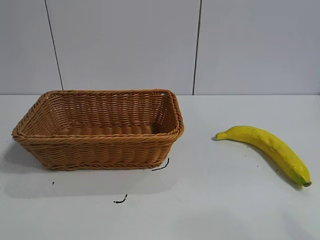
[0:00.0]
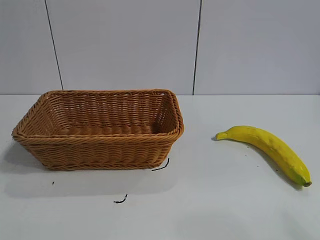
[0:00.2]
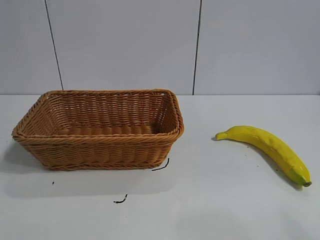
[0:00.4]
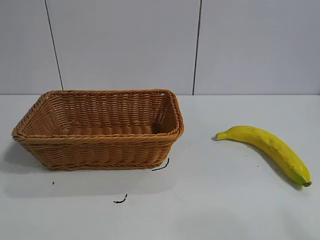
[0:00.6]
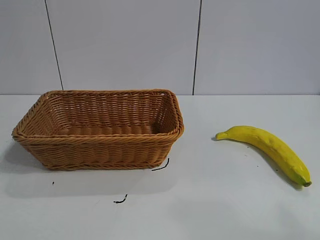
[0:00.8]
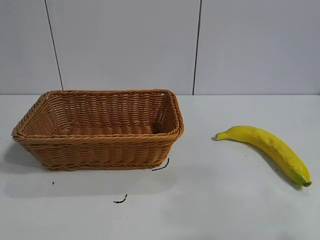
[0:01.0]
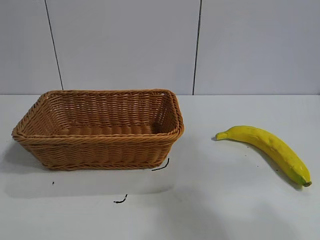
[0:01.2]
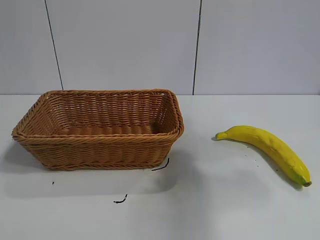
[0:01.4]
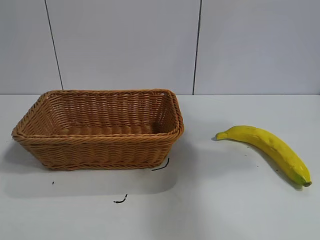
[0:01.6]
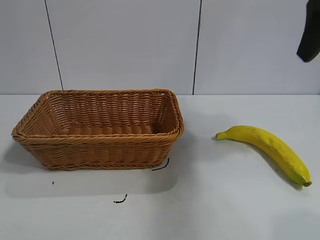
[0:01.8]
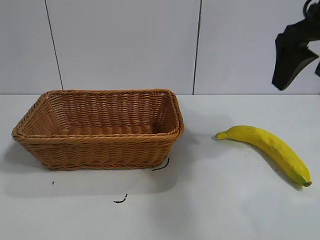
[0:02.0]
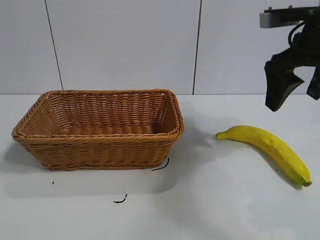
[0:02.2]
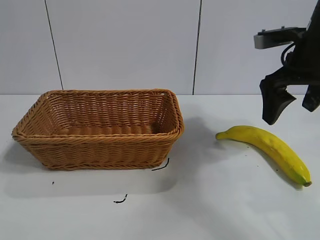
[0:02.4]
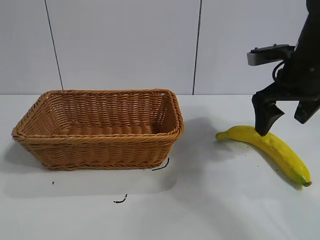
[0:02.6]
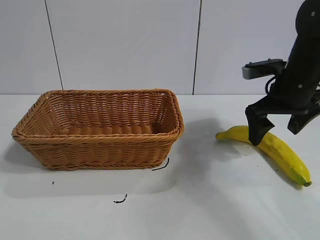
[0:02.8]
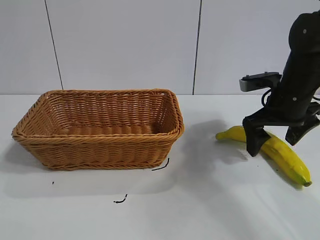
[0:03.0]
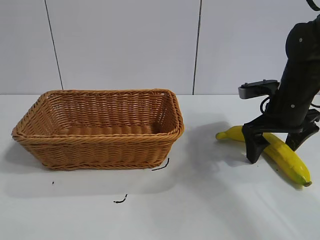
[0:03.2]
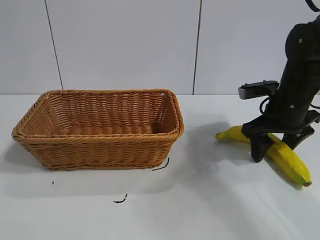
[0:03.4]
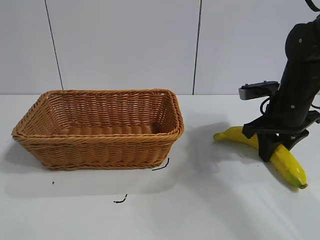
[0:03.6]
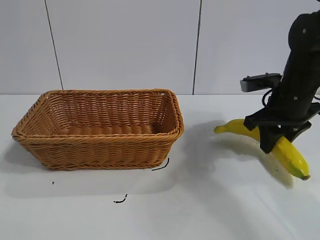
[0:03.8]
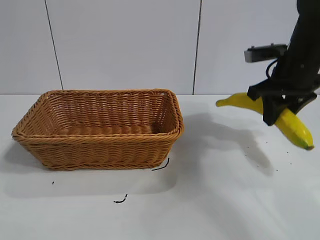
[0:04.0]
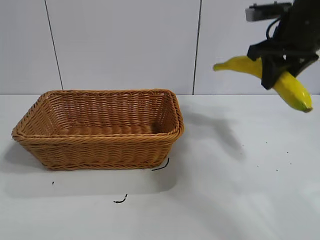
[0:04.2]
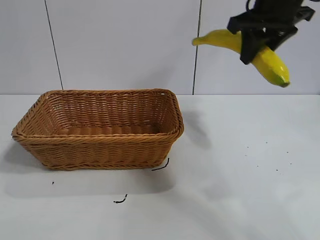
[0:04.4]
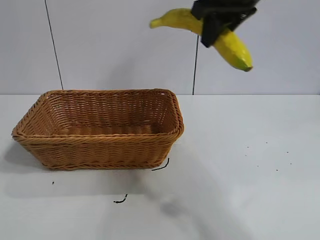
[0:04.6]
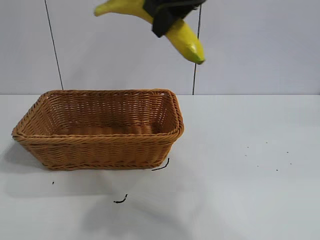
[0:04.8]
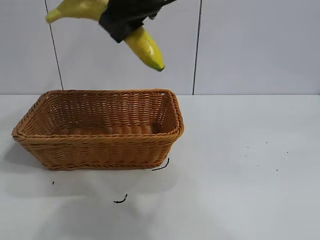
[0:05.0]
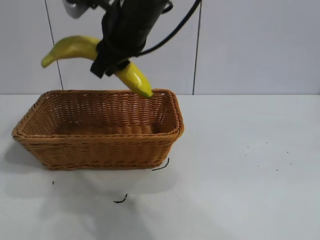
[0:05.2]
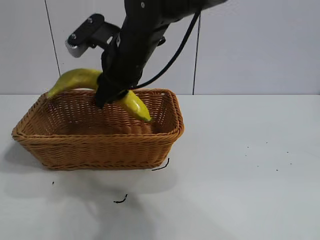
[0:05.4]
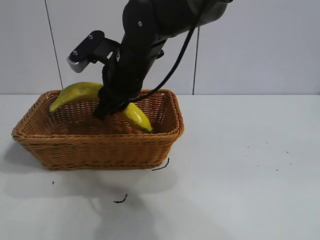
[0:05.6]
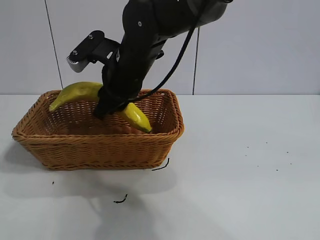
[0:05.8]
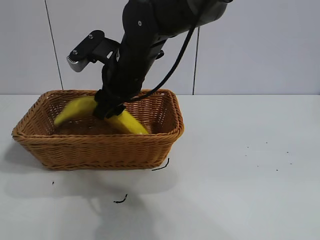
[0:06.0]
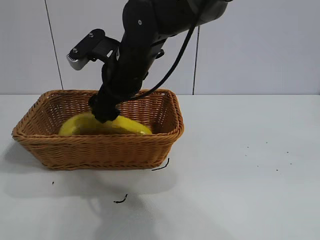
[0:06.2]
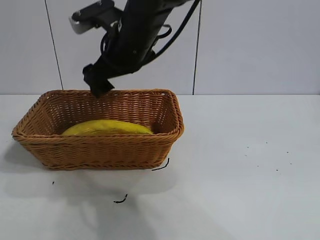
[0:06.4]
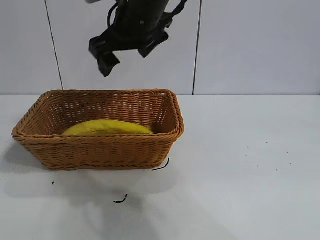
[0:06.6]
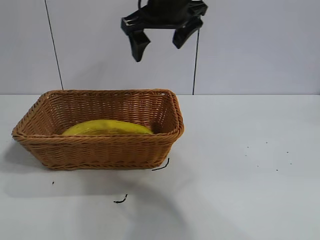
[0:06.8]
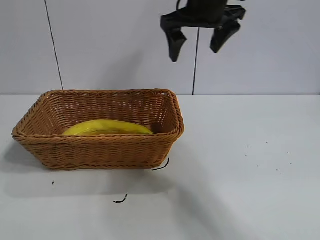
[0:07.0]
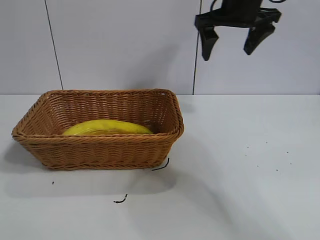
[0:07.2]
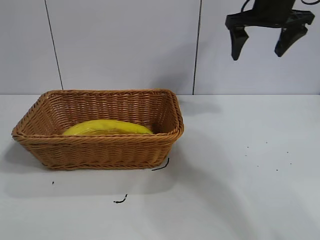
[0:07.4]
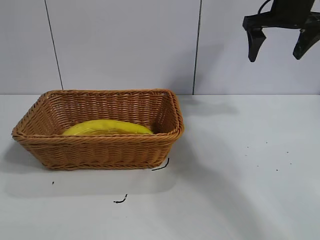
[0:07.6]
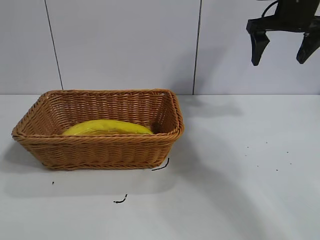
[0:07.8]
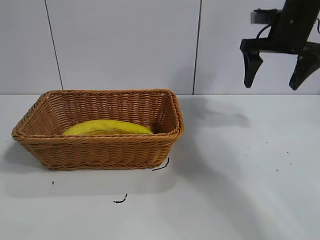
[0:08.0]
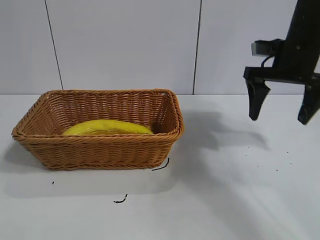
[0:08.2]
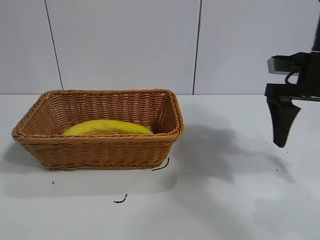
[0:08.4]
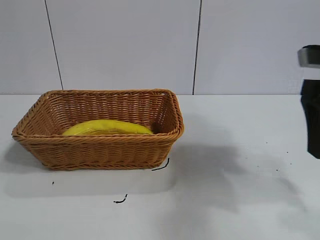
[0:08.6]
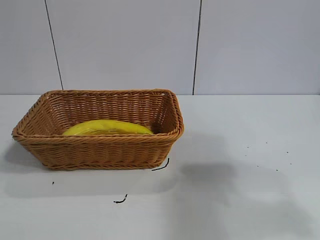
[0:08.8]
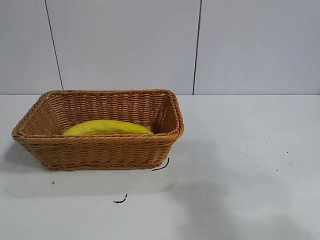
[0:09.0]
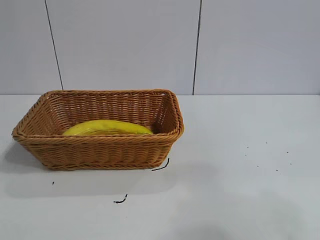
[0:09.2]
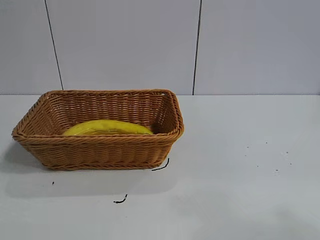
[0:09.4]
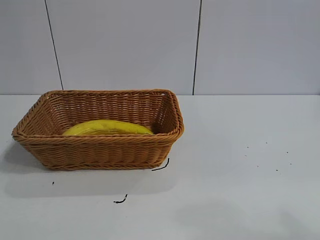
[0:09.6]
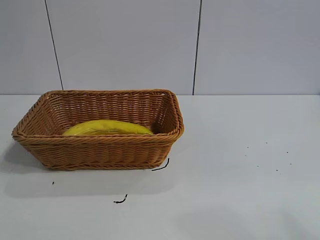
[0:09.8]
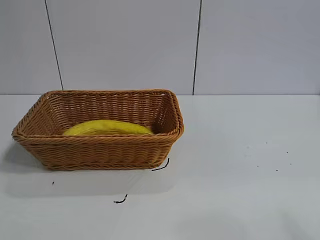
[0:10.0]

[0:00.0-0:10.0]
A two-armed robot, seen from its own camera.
Task of the whole recording: pick up the banana and put it into the basket.
Step, 0:01.8 to 0:03.6: Grasp the banana with right gripper.
Step, 0:04.0 to 0:06.2: Place the banana in the basket with right gripper.

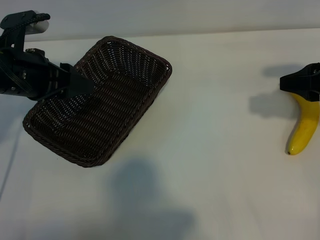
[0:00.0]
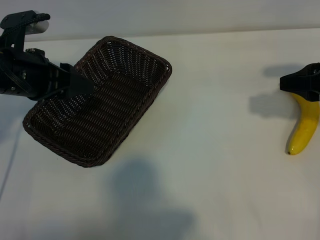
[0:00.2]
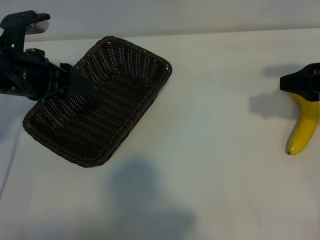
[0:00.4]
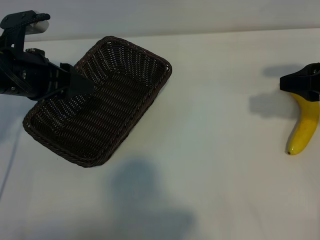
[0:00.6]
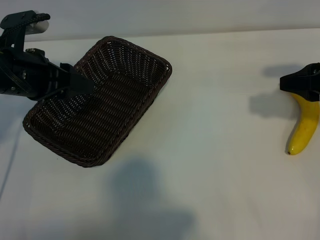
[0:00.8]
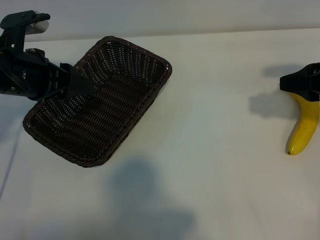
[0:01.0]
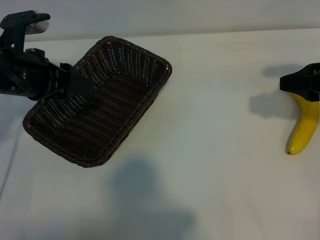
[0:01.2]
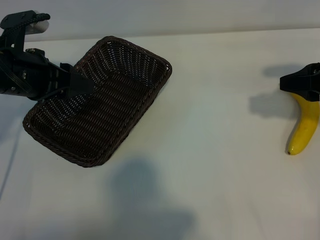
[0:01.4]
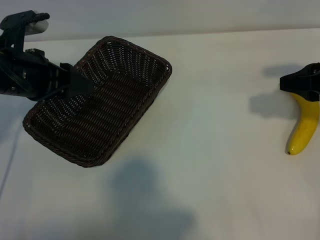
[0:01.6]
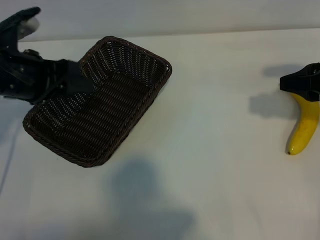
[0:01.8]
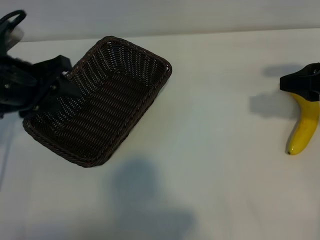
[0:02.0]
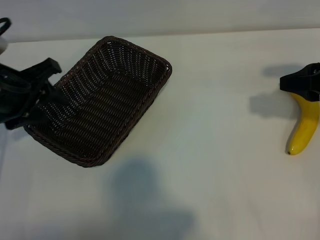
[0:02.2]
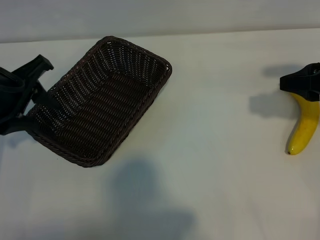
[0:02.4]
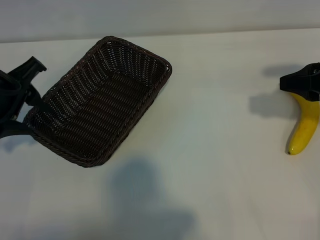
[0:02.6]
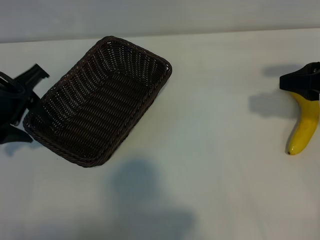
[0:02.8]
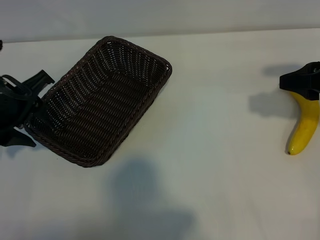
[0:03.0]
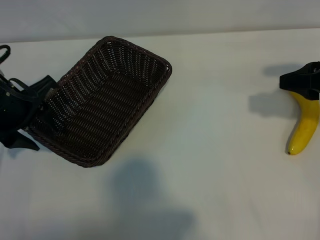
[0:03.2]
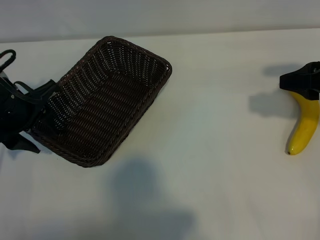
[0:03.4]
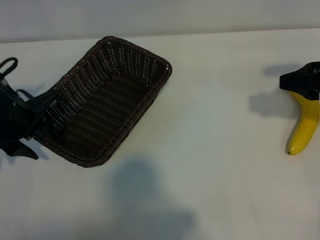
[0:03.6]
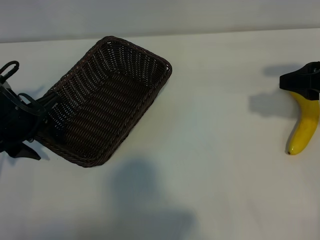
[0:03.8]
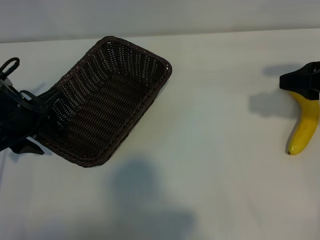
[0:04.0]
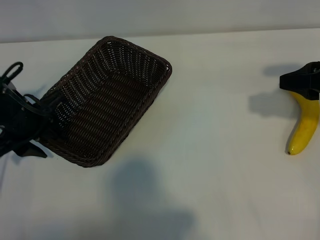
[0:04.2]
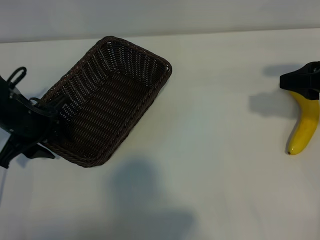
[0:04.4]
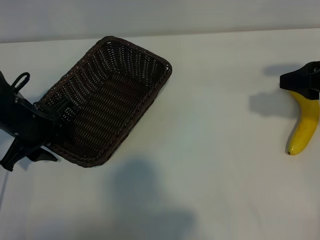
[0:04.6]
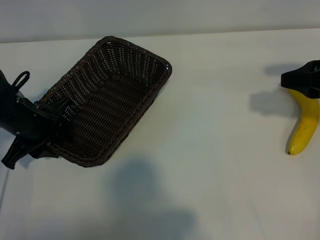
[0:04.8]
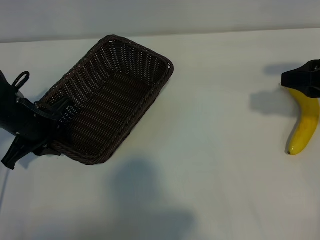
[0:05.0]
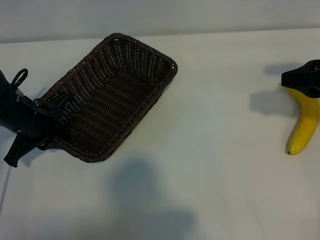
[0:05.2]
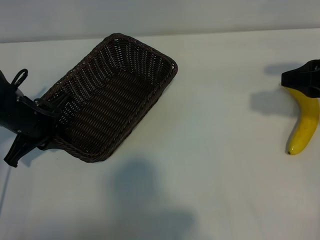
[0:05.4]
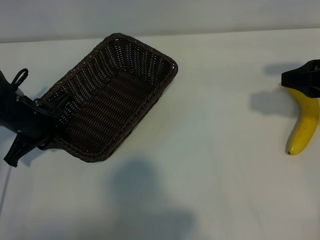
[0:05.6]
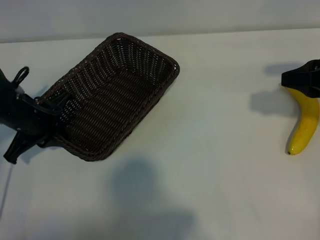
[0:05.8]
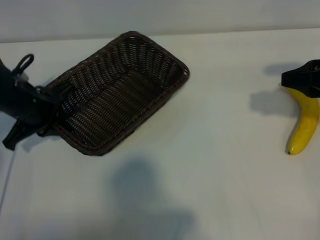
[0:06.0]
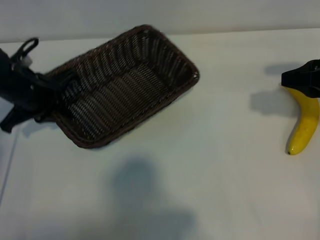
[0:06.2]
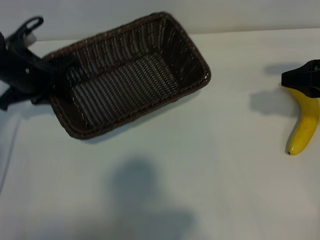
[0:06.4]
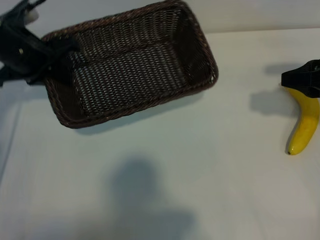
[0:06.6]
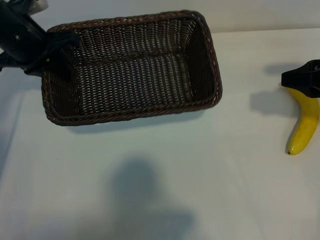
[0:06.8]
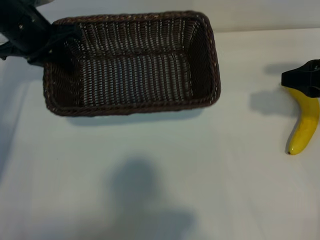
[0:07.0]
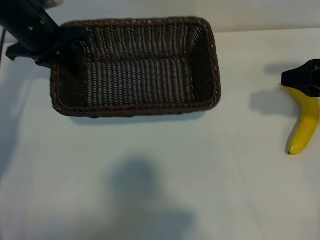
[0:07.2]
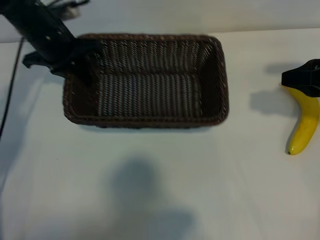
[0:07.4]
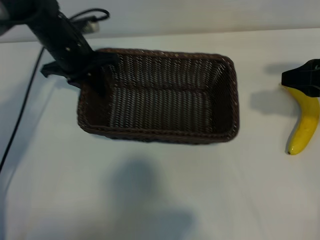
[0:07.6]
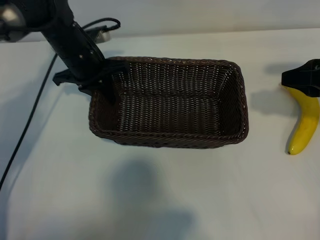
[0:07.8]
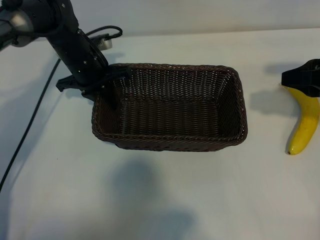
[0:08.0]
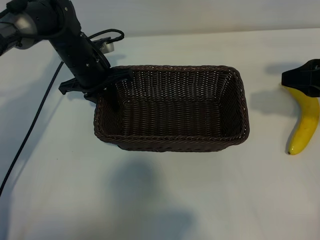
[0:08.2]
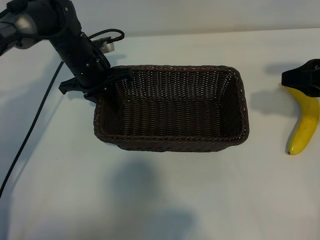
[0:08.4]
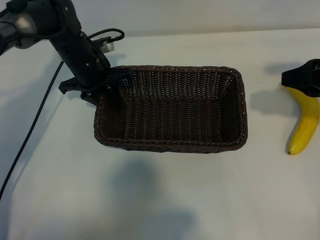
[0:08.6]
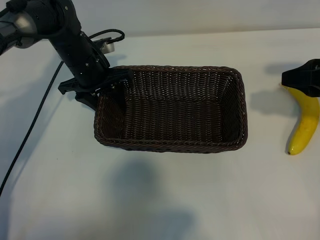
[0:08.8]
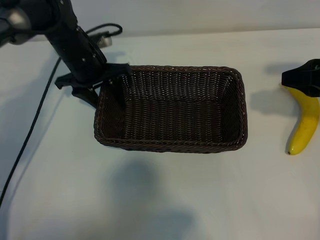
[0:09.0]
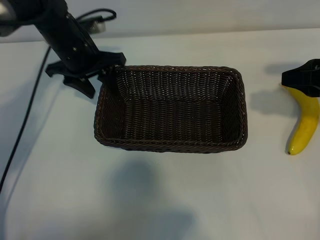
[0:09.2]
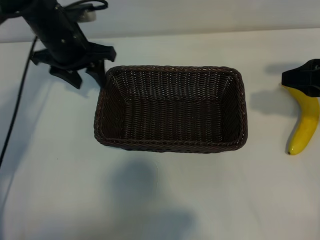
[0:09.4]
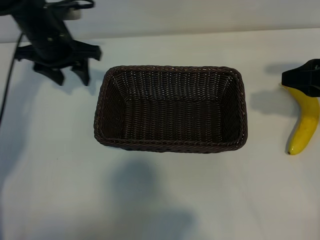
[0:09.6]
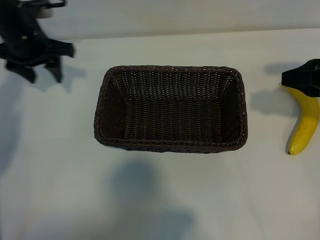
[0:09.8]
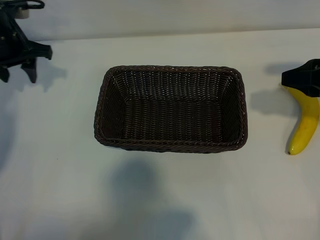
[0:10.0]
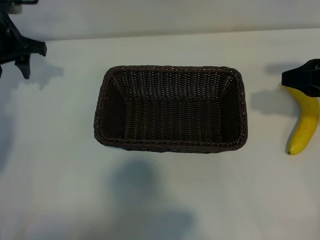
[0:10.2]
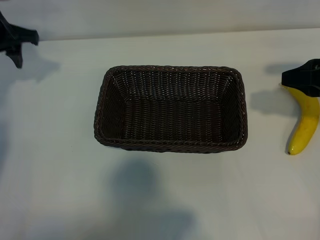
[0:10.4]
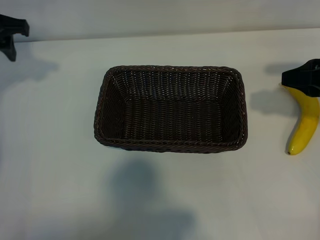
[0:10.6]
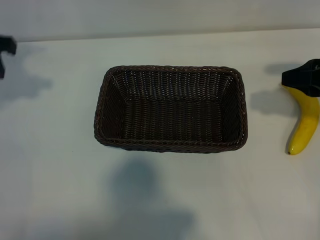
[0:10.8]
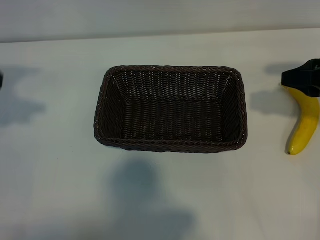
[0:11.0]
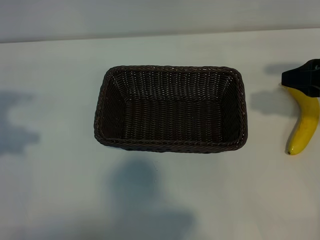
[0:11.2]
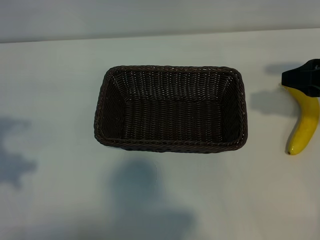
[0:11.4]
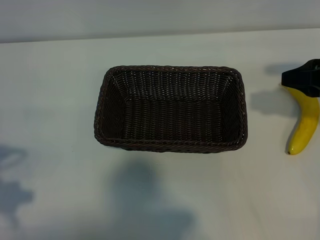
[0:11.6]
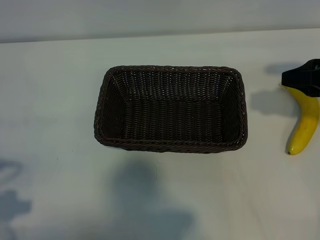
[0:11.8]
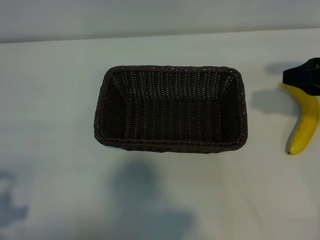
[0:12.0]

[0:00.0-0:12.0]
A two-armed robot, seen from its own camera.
Task of the whole recording: pick up the banana and put it into the basket.
Step, 0:01.6 to 0:05.2: Grasp the basket with the left gripper.
Step, 0:05.6 to 0:09.0: Place the basket in the center of the table with the left gripper.
